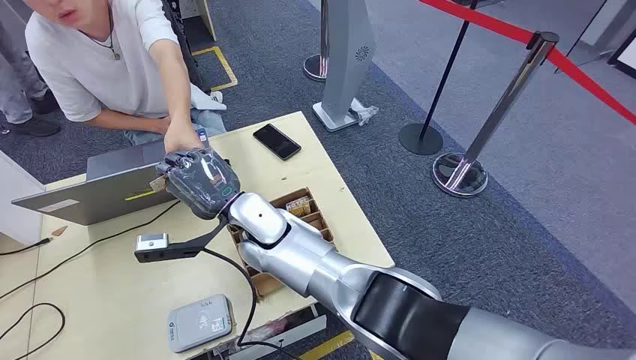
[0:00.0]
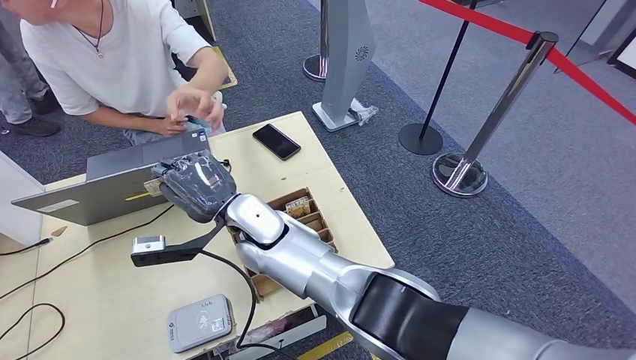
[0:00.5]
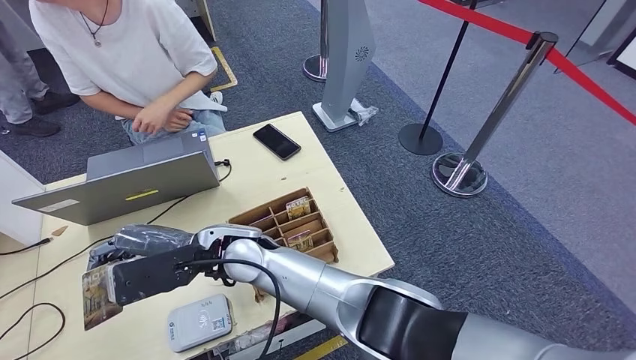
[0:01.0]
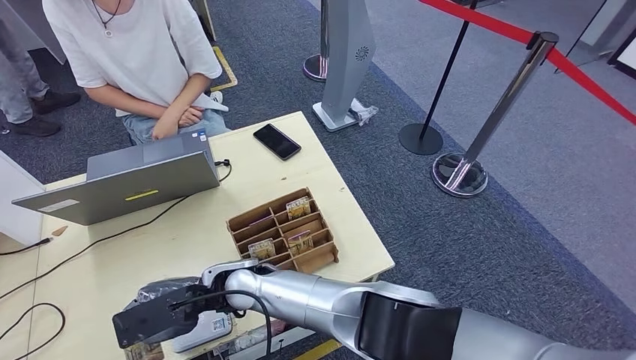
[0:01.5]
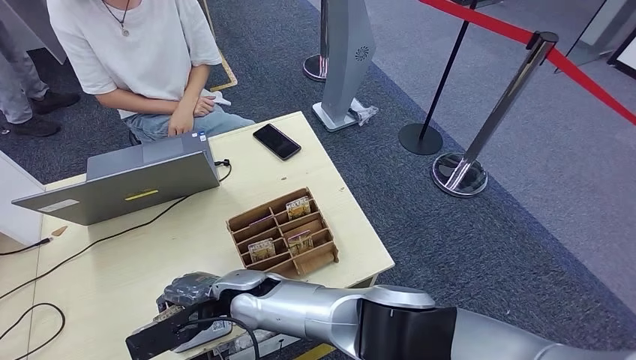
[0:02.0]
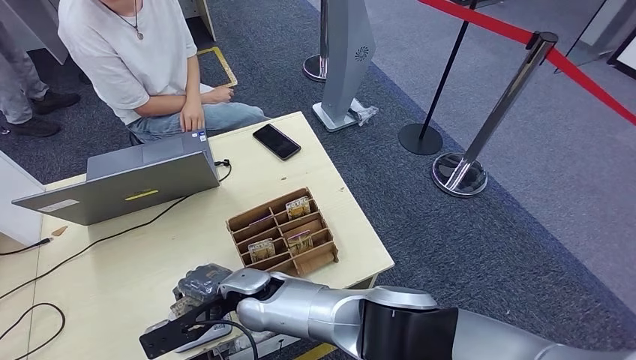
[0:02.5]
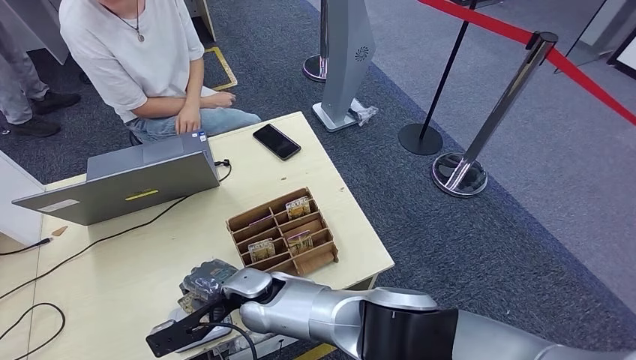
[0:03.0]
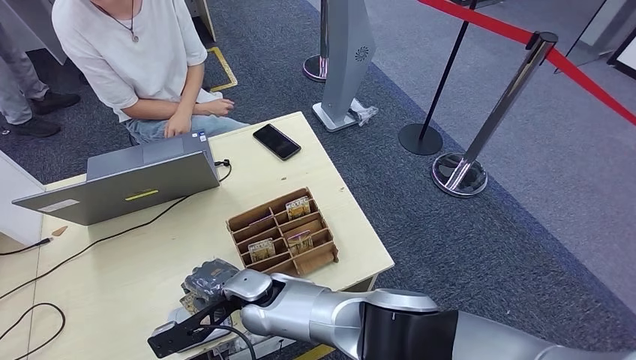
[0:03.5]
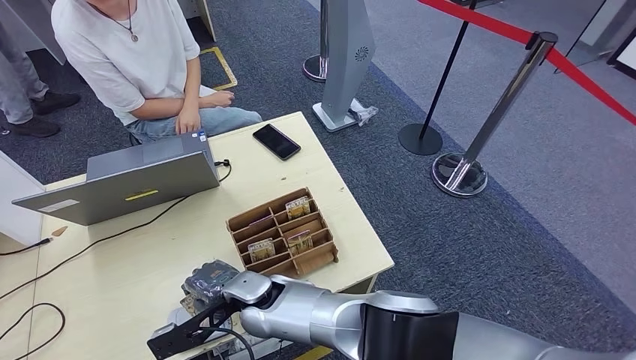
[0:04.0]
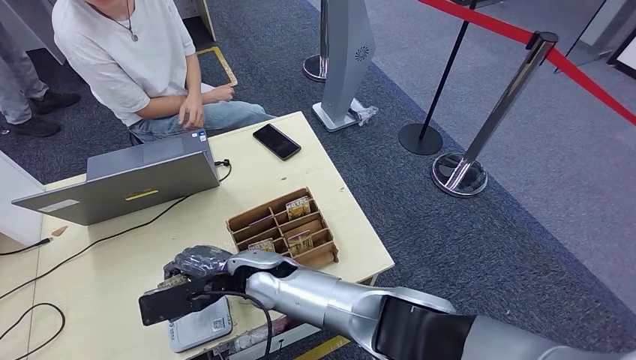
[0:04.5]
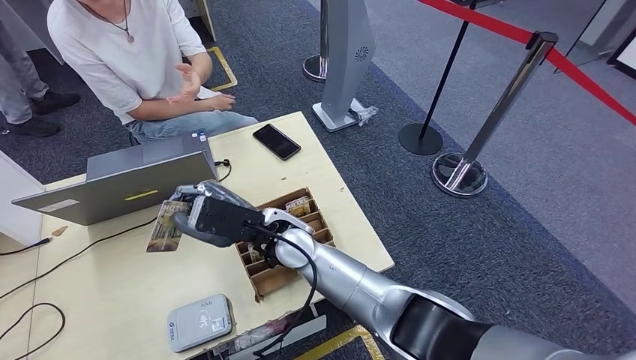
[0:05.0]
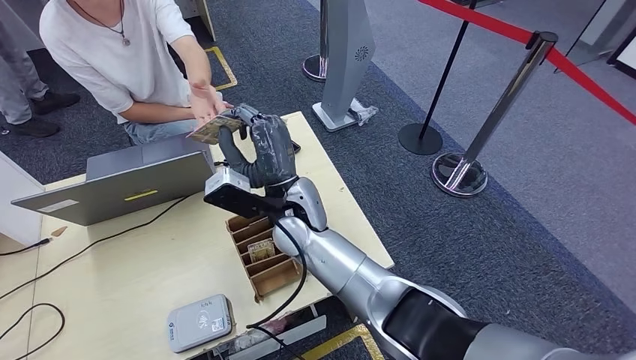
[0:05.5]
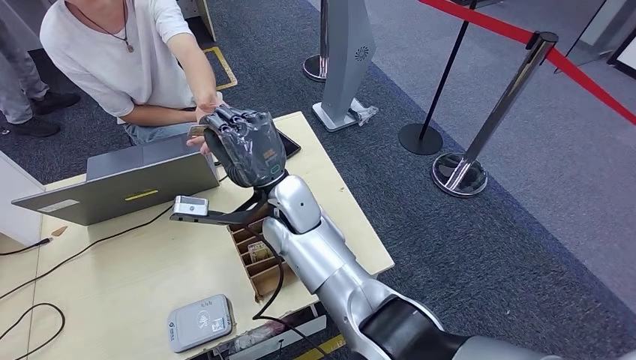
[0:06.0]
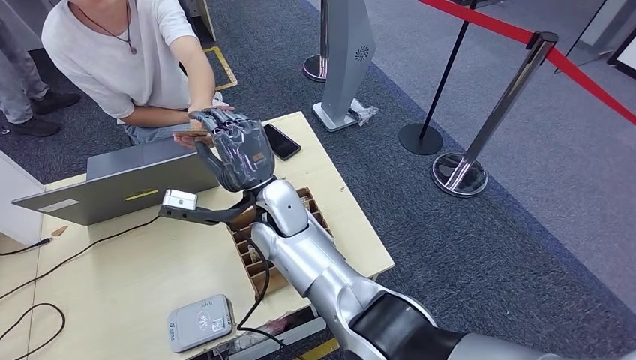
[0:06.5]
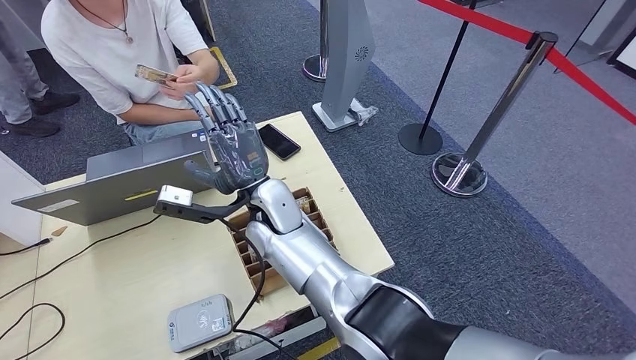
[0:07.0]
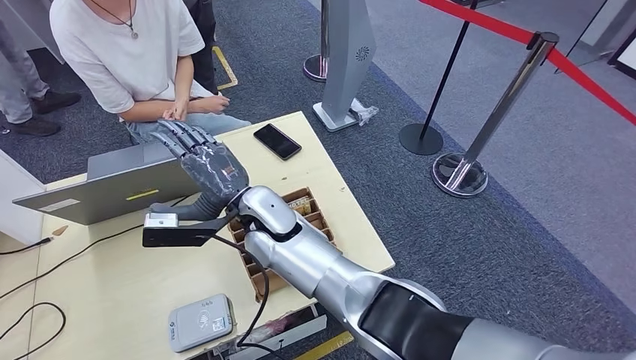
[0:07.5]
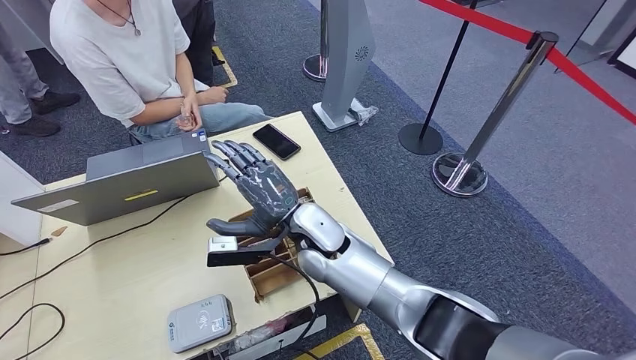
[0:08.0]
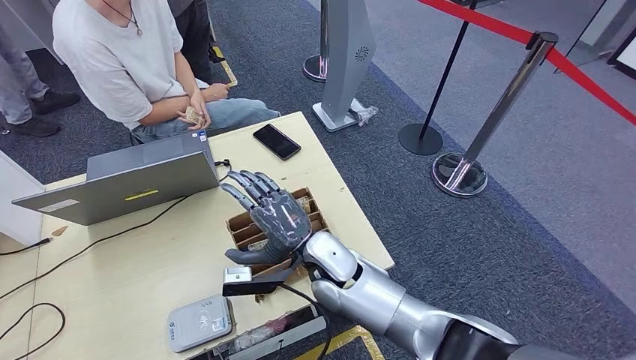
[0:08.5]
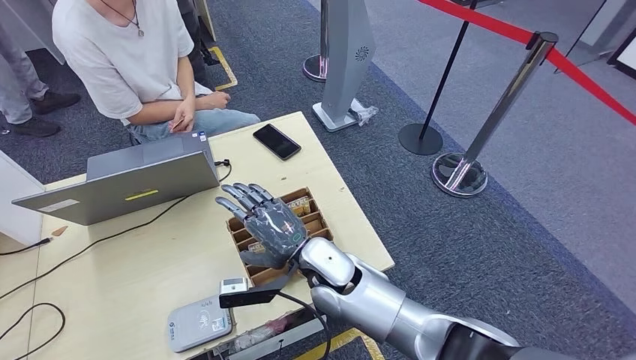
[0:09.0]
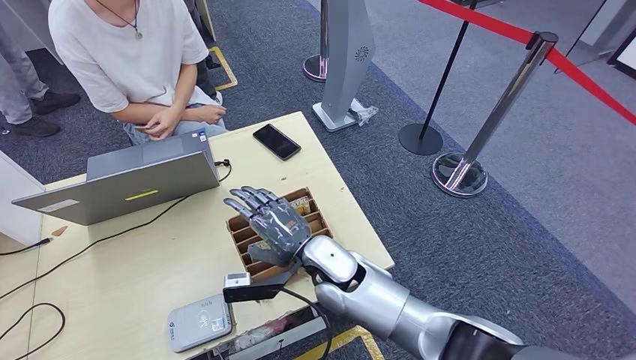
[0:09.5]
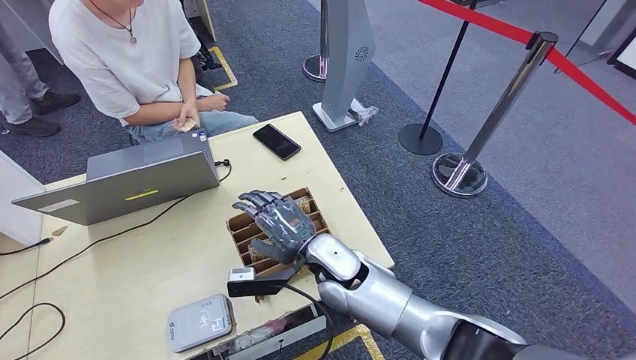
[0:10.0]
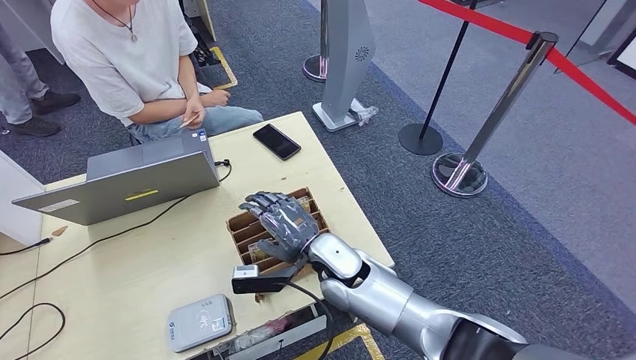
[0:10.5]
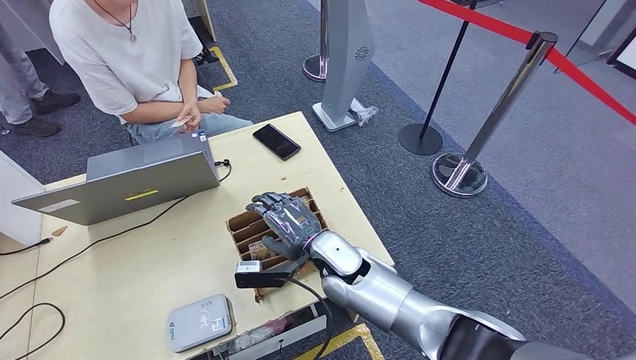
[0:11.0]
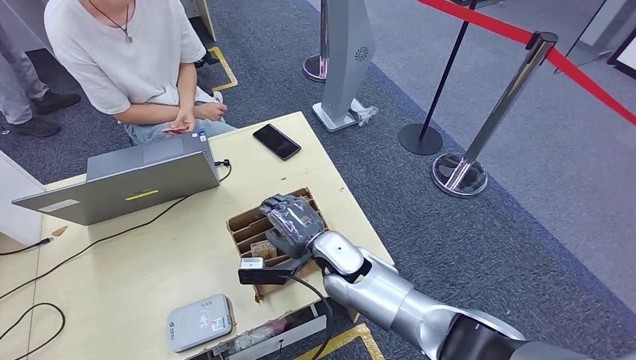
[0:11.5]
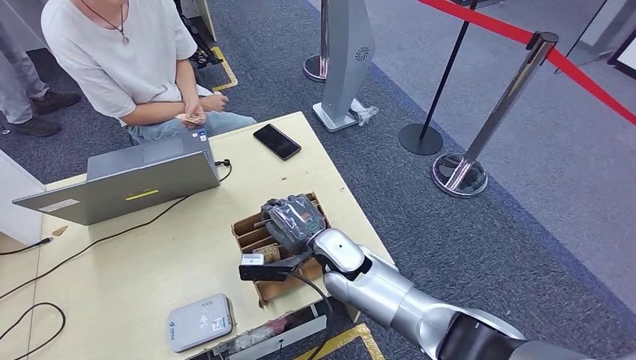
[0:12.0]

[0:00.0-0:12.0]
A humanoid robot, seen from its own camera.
Step, 0:00.0 to 0:01.0: Take the ID card from the person's hand.
Step, 0:02.0 to 0:05.0: Place the ID card on the card reader.
Step, 0:05.5 to 0:08.5: Hand the ID card to the person.
0:04.0 to 0:06.0: The right hand travels upward, to the right and forward by roughly 15 cm.
0:06.0 to 0:08.0: The right hand heads downward, covering about 5 cm.
0:08.0 to 0:10.0: The right hand changes place by approximately 5 cm.
0:10.0 to 0:12.0: The hands make only small movements.

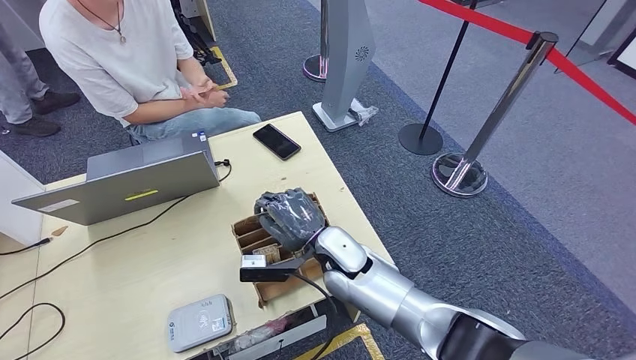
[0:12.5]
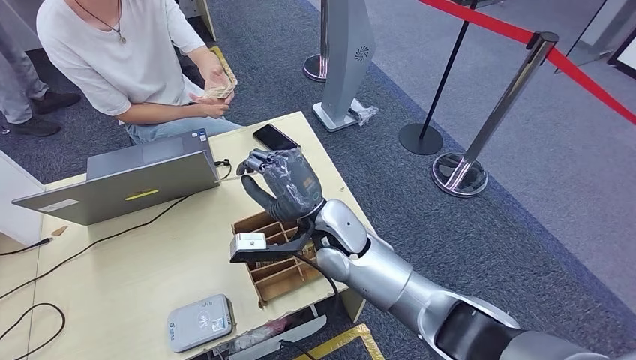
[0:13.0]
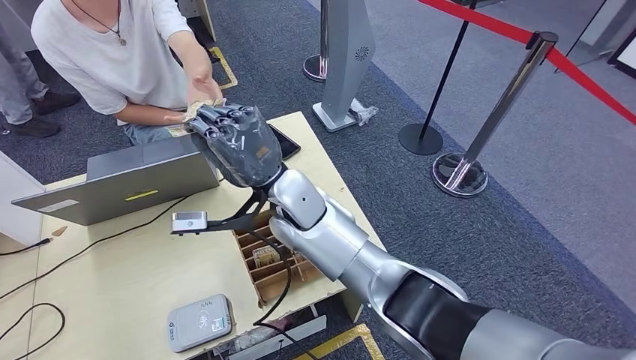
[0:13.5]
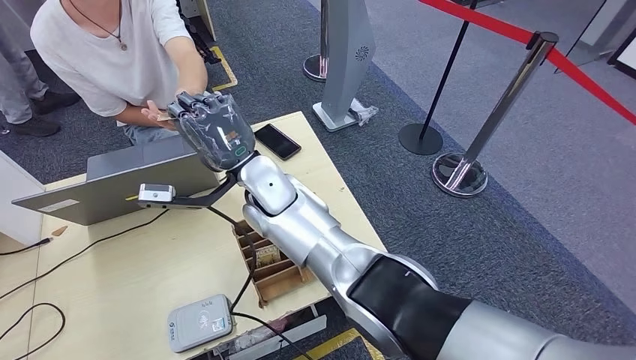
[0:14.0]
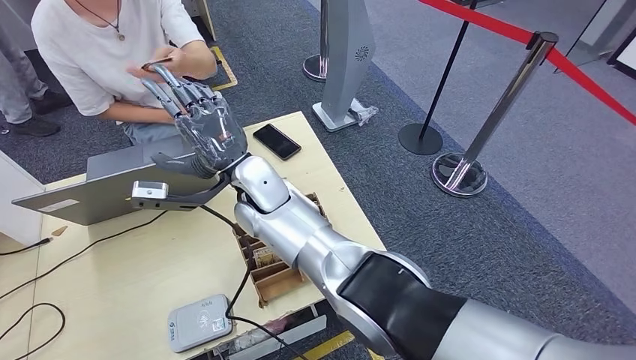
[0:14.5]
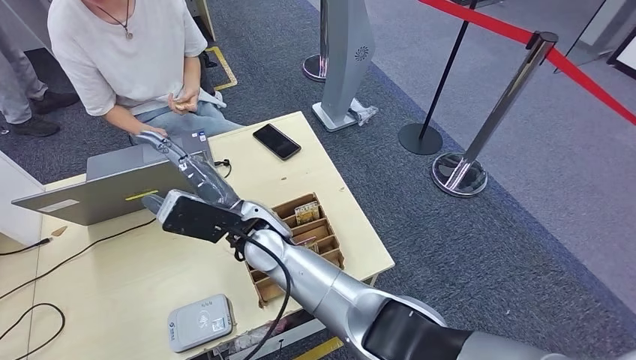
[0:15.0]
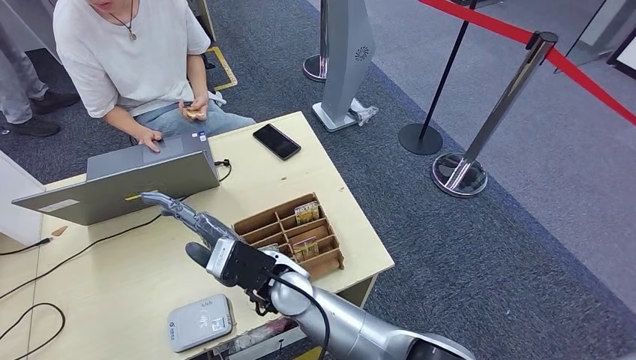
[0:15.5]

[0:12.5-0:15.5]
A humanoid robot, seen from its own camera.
Step, 0:14.0 to 0:15.5: Hand the room key to the person.
0:12.5 to 0:14.0: The right hand moves upward, forward and to the left, some 20 cm.
